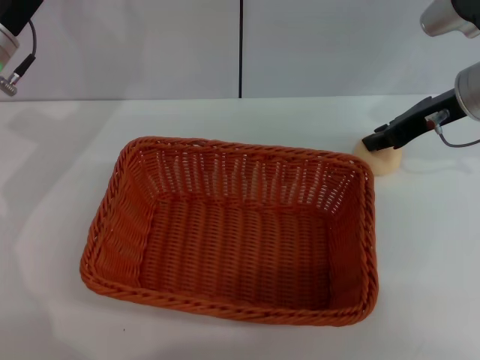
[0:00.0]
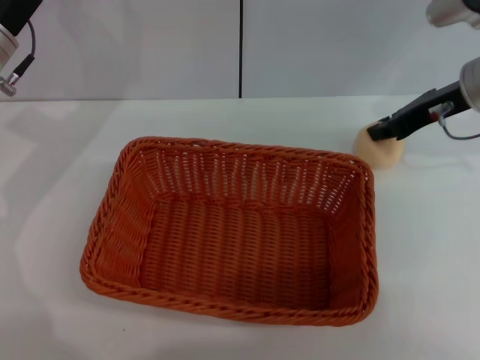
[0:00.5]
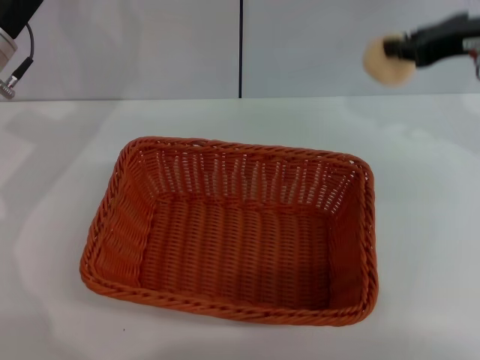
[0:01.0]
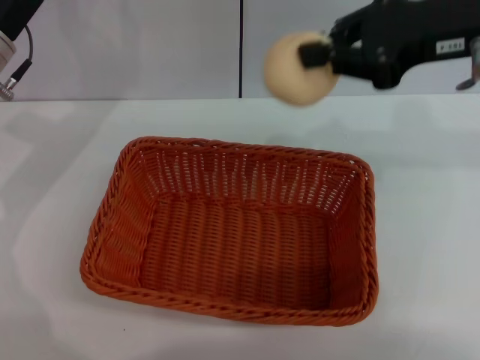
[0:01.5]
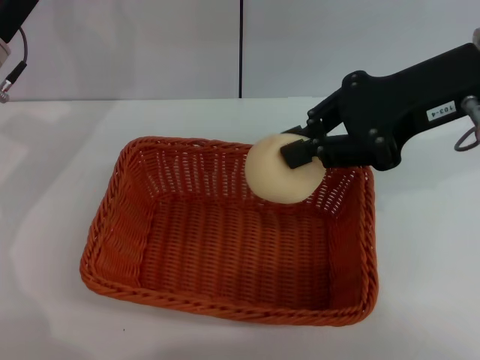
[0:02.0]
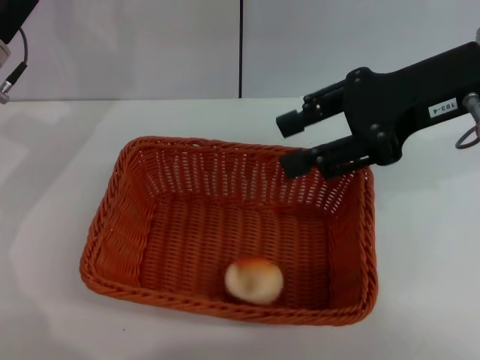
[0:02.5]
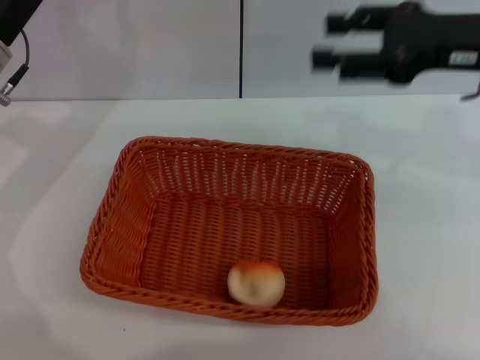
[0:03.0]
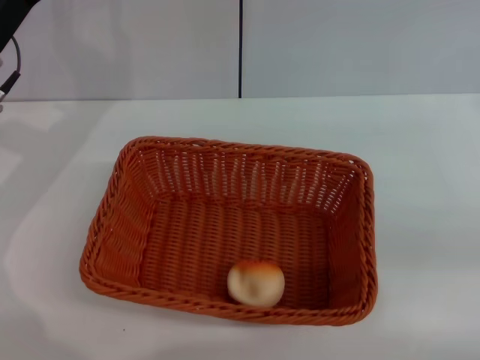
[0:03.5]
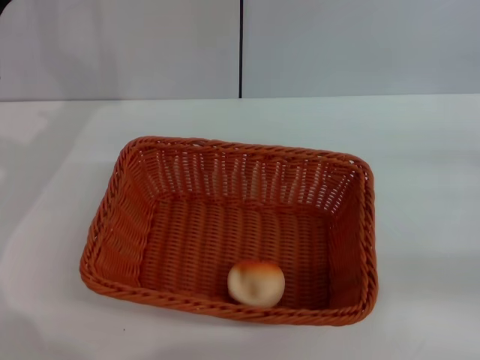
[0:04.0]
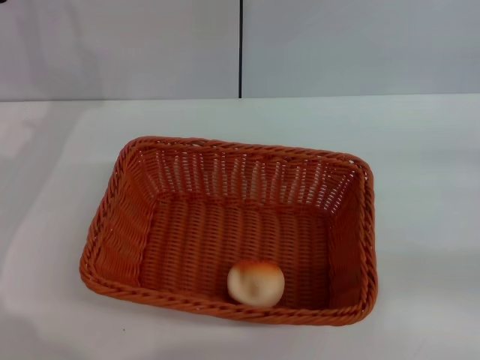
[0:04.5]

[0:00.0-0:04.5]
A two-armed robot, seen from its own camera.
Step, 0:01.0 to 0:02.5: Place the egg yolk pastry into the basket with the right gripper.
0:00.0 to 0:02.0: The right gripper travels upward and backward by some 10 cm, and closes up.
0:02.0 to 0:04.5: The right gripper travels to the right and downward by approximately 25 cm, and opens up.
